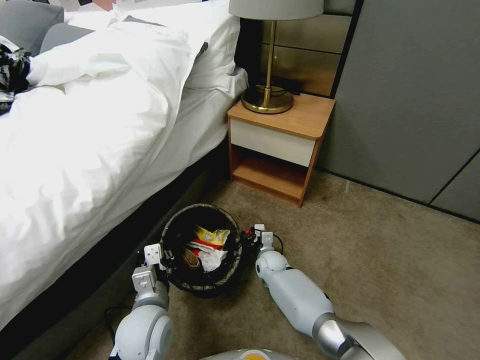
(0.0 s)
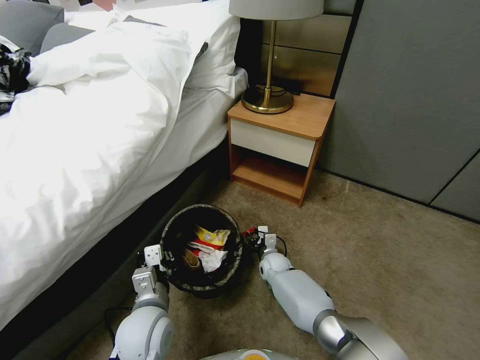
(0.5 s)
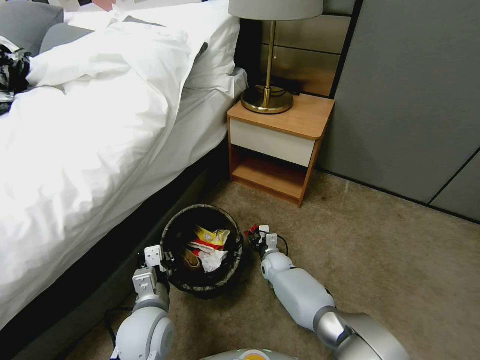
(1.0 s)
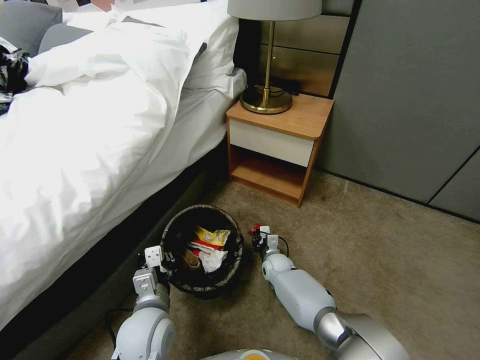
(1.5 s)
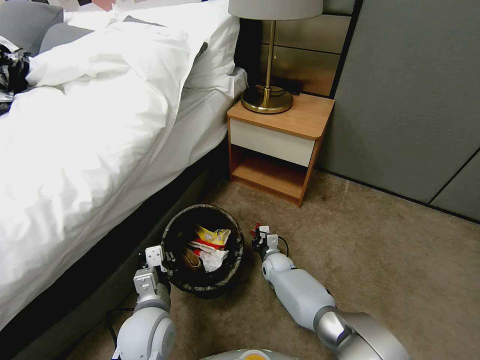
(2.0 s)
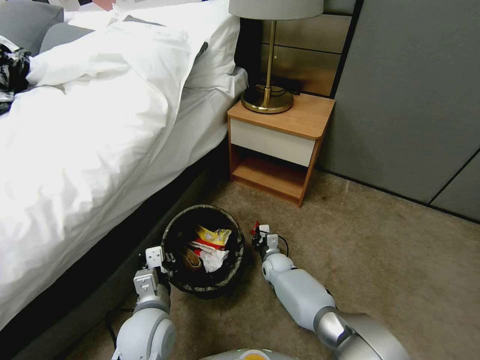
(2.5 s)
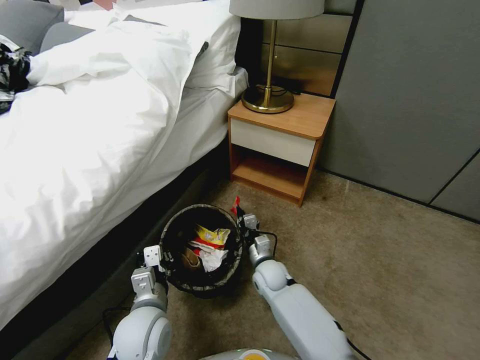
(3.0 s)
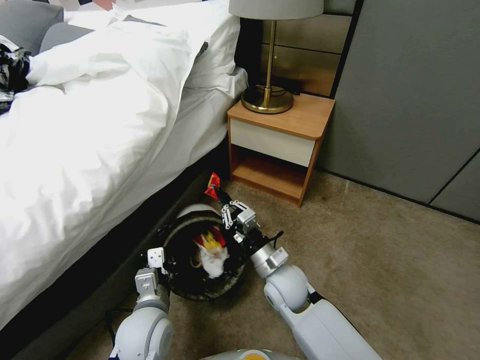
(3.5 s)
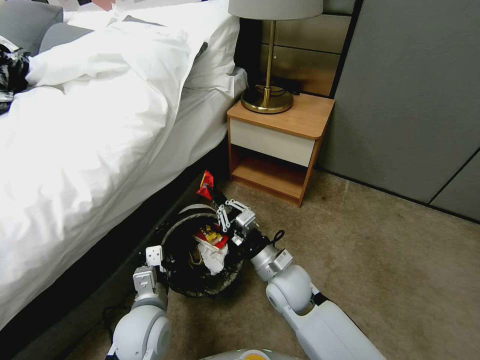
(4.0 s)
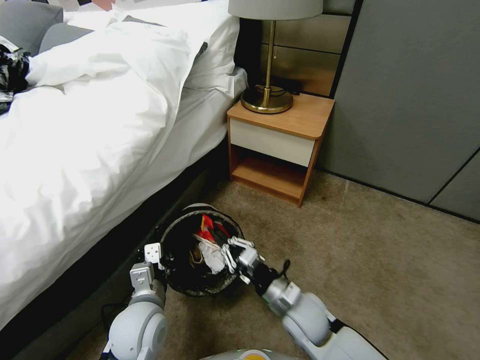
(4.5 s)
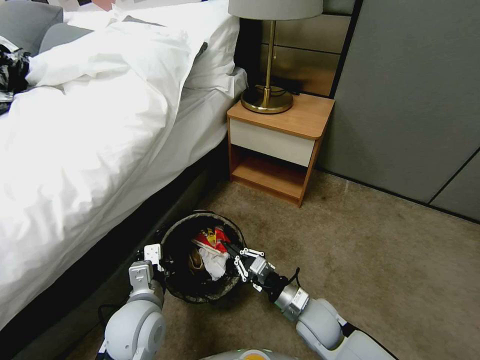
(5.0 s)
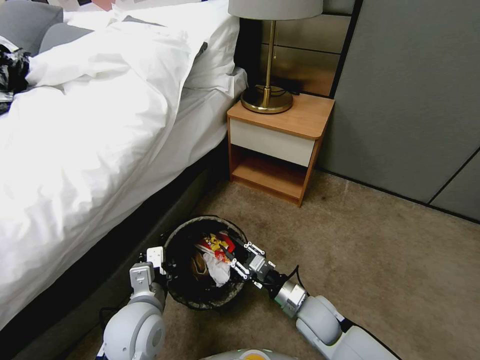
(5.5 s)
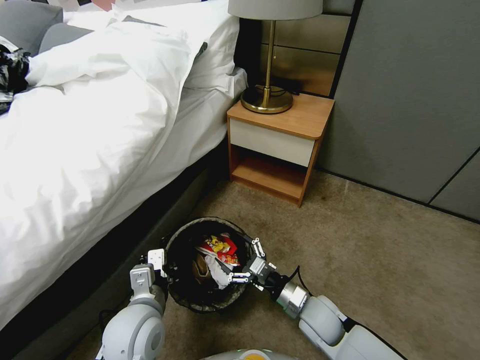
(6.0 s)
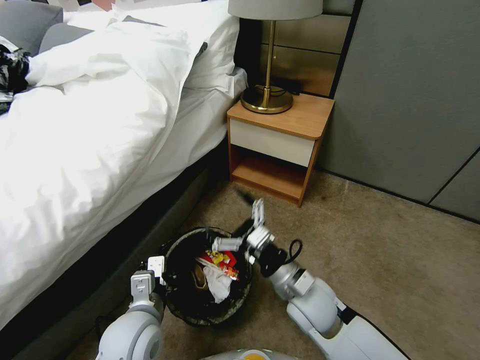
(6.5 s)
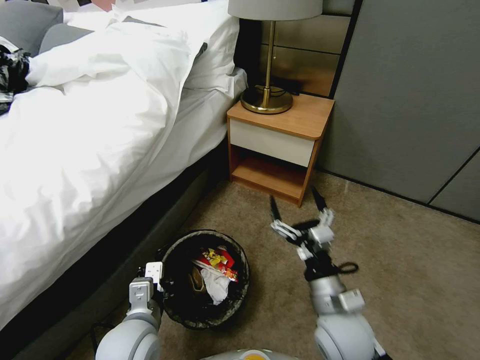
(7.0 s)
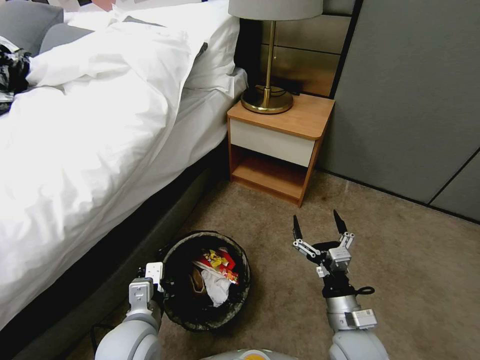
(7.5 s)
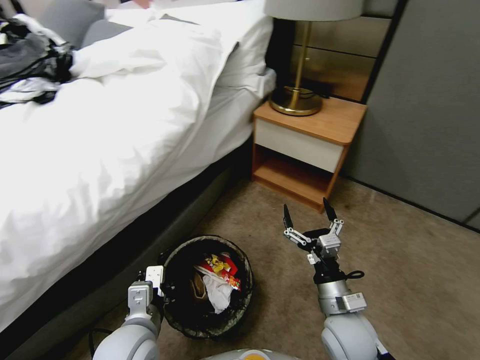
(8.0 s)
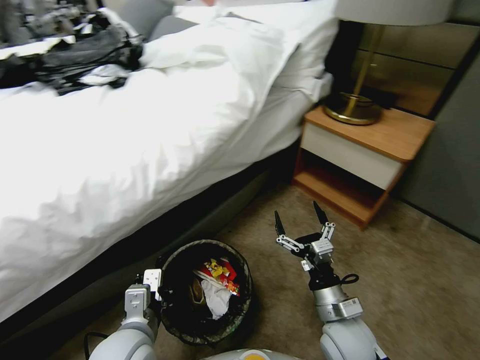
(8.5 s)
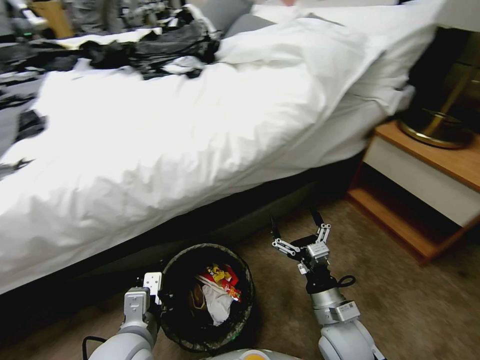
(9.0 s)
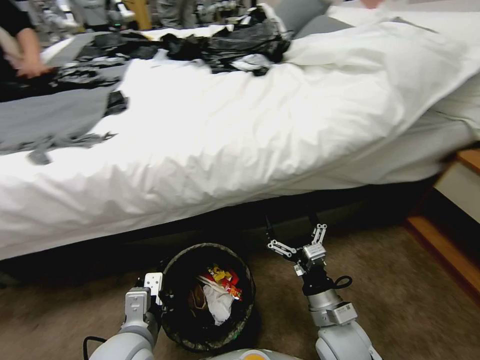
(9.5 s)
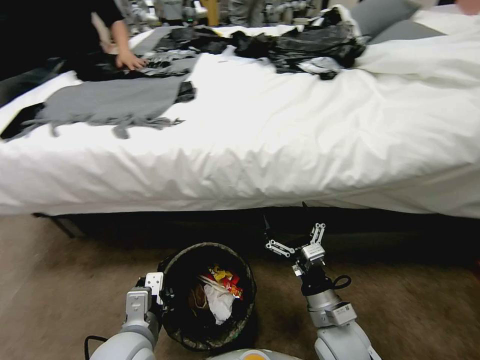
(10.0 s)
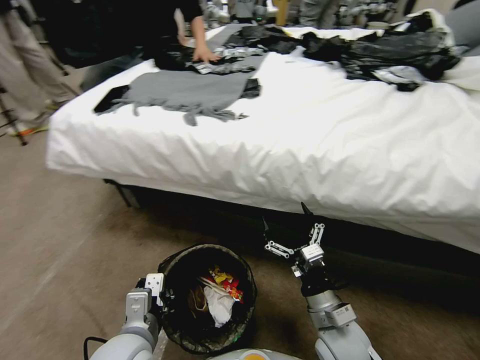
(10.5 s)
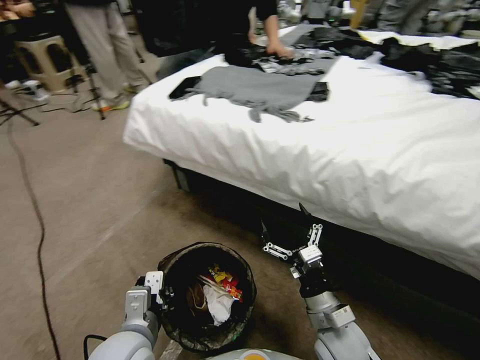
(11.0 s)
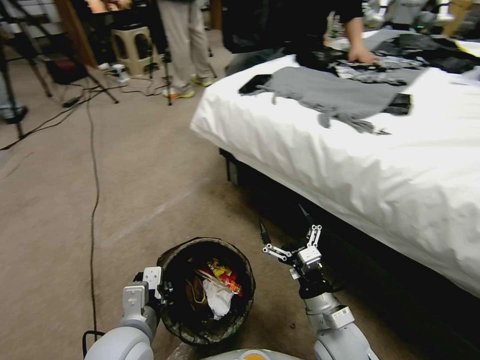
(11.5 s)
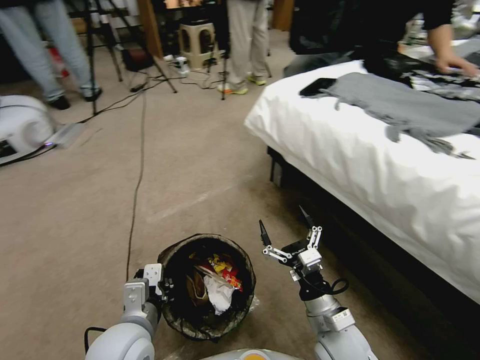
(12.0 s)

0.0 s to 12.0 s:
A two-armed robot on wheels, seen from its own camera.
Task of the whole recording: Pick up the trash bin, then pick up the garbage from the floor and place it into the trash bin.
0.0 to 2.0 s: The right gripper closes its fingers.
2.0 to 4.0 s: The right gripper heads upward and backward, covering approximately 25 cm.
4.0 to 6.0 s: The right gripper goes roughly 10 cm downward and to the right, and opens its fingers.
6.0 to 8.0 s: The right gripper shifts roughly 10 cm upward and backward.

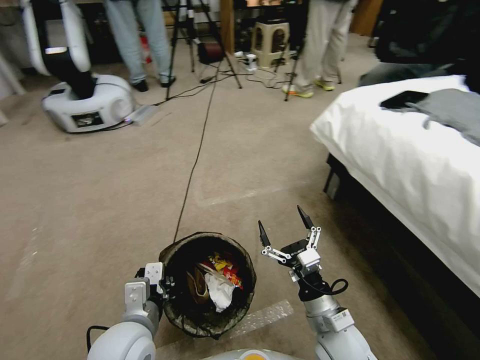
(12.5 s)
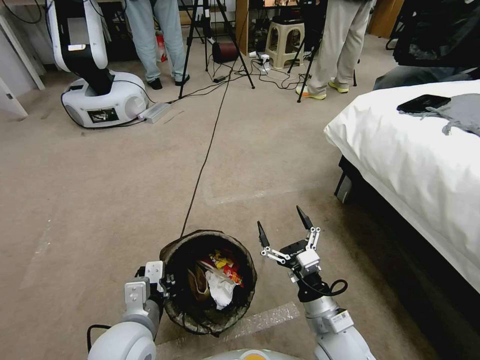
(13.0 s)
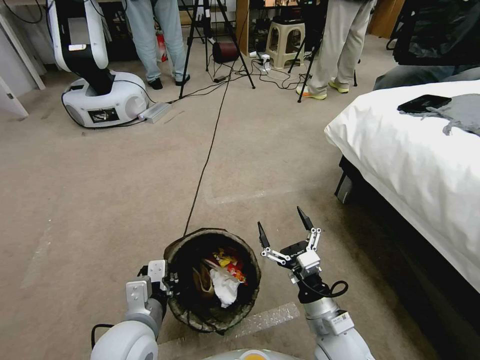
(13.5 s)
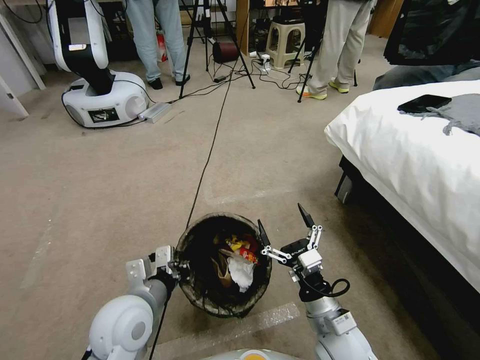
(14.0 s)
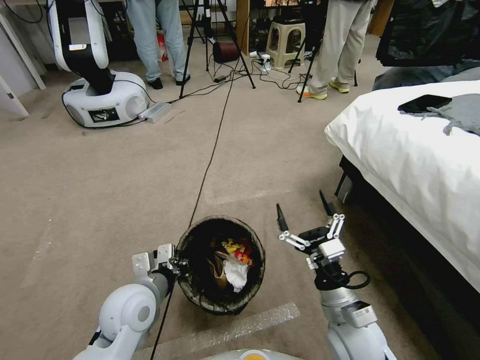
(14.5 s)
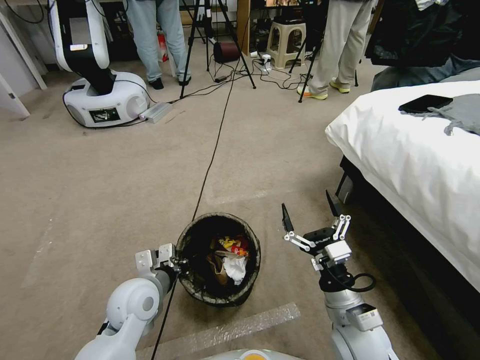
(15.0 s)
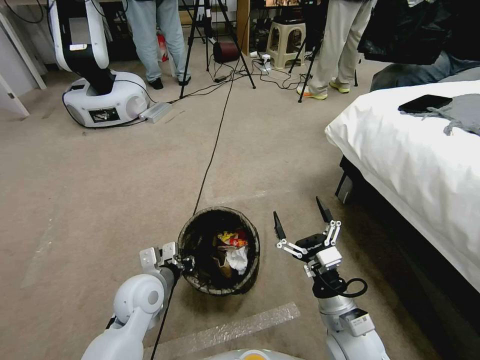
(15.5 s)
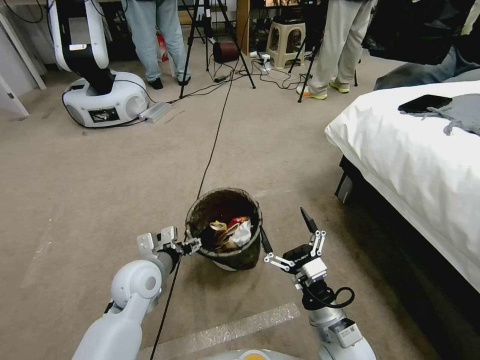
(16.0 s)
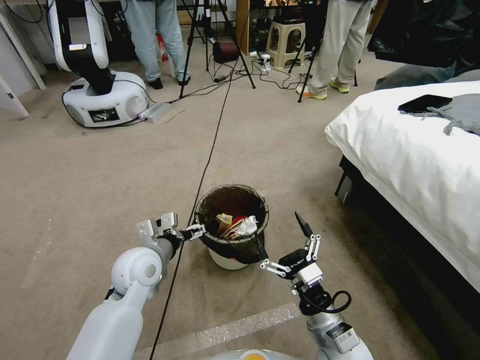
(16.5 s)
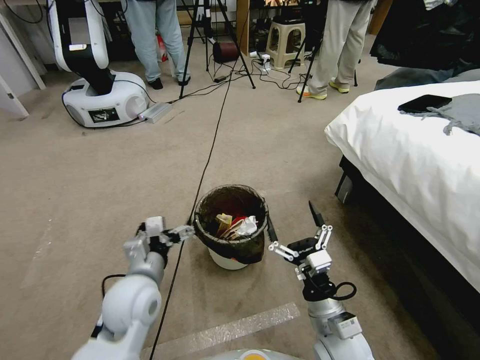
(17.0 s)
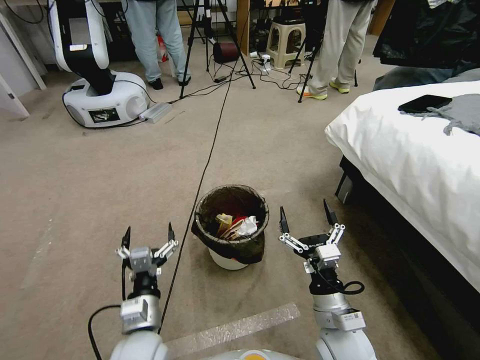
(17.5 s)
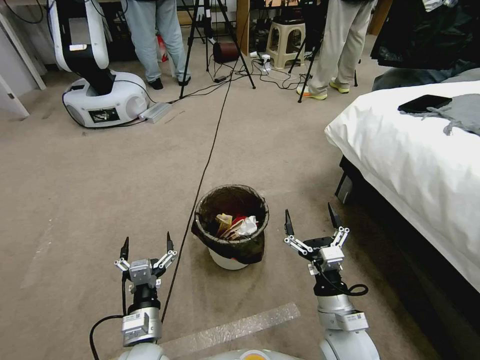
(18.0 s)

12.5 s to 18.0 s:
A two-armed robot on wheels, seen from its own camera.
Task of the whole recording: Pick up the trash bin, then pick up the garbage from the floor and place it into the trash bin.
12.5 to 14.5 s: The left gripper travels forward by roughly 5 cm.
14.5 to 16.0 s: The left gripper goes roughly 5 cm forward, and opens.
16.0 to 18.0 s: The left gripper travels backward and downward by roughly 15 cm.

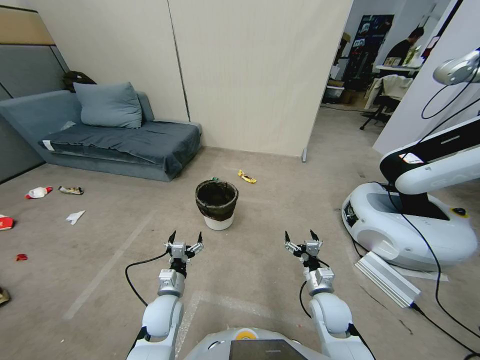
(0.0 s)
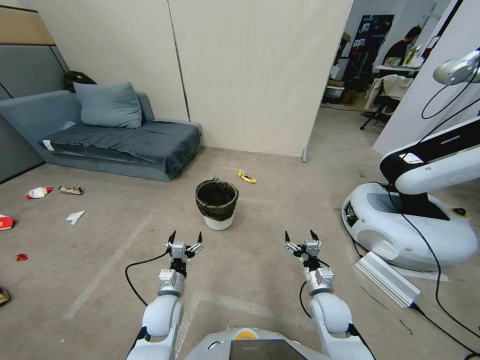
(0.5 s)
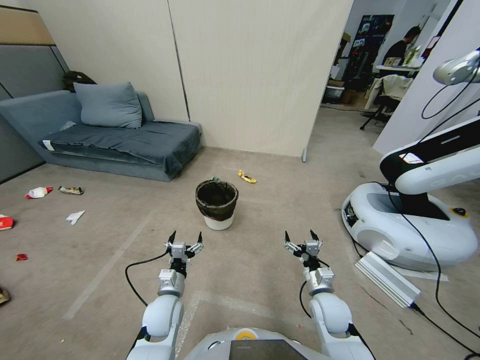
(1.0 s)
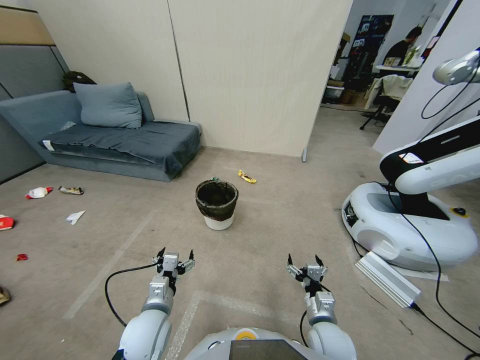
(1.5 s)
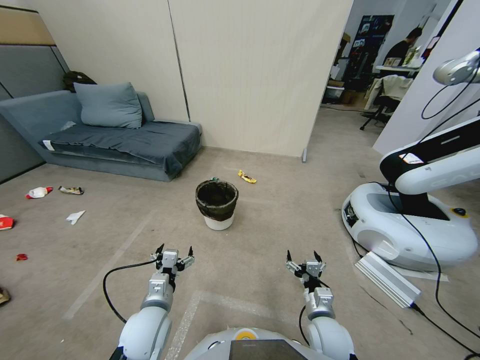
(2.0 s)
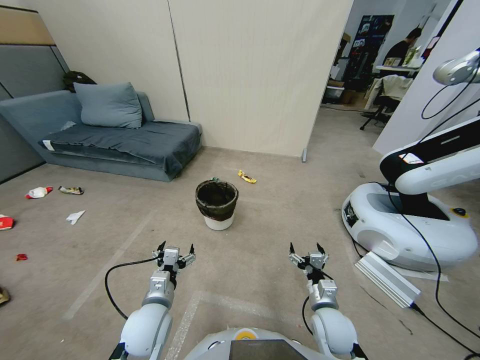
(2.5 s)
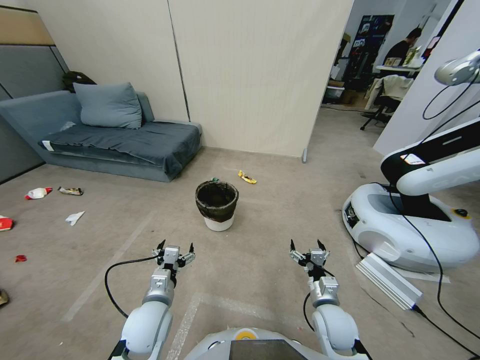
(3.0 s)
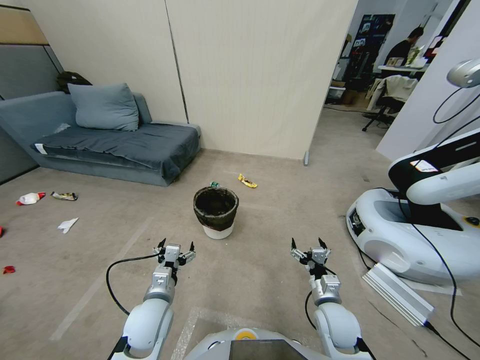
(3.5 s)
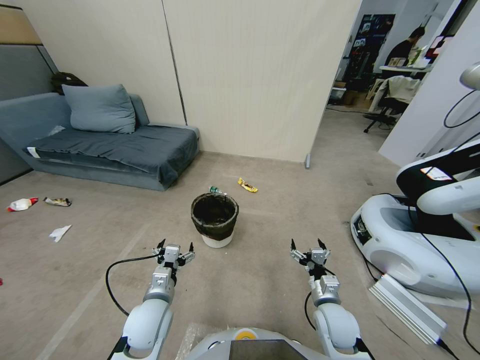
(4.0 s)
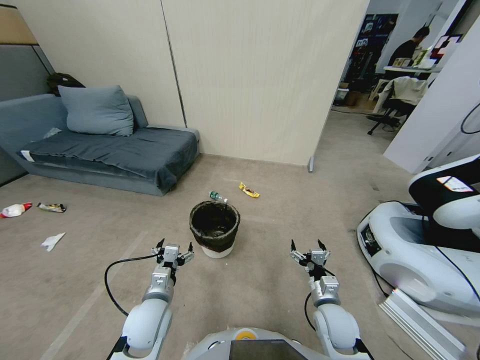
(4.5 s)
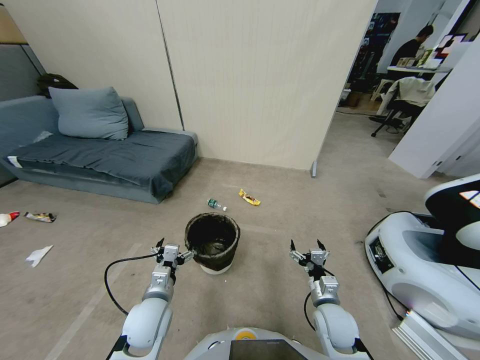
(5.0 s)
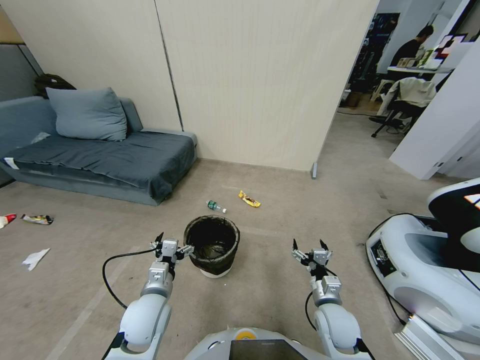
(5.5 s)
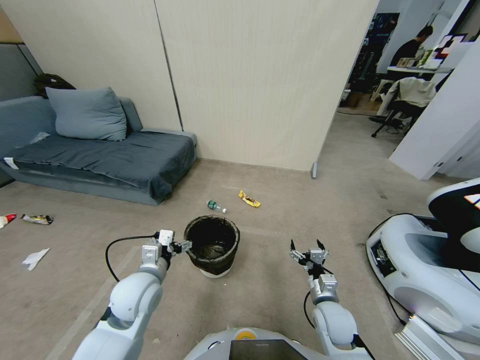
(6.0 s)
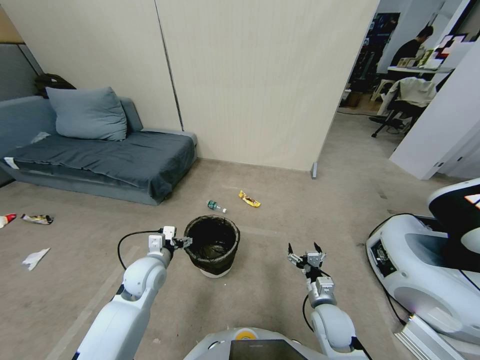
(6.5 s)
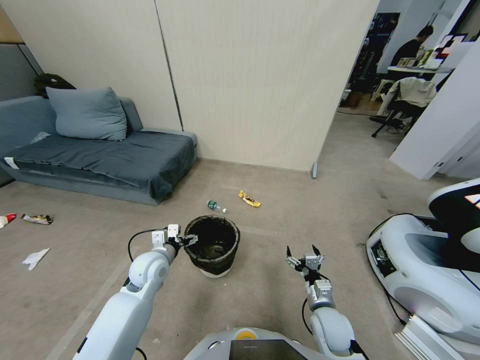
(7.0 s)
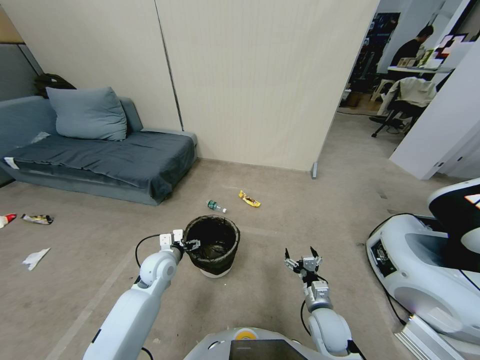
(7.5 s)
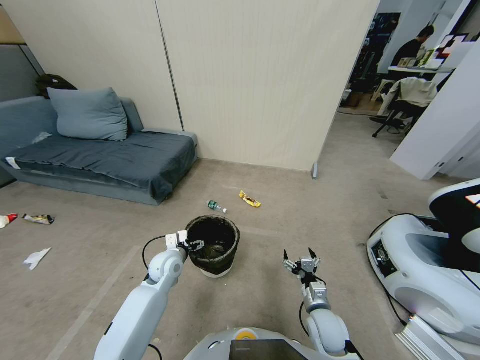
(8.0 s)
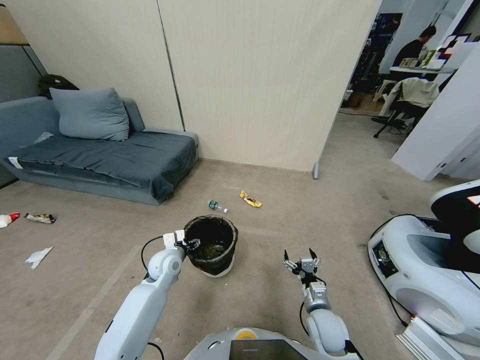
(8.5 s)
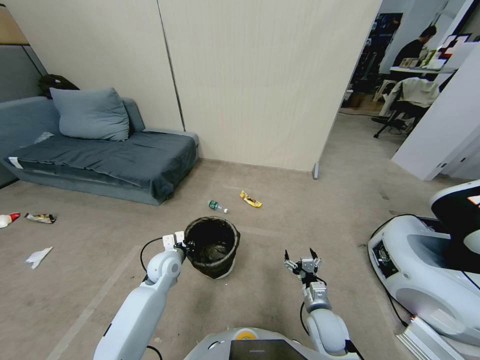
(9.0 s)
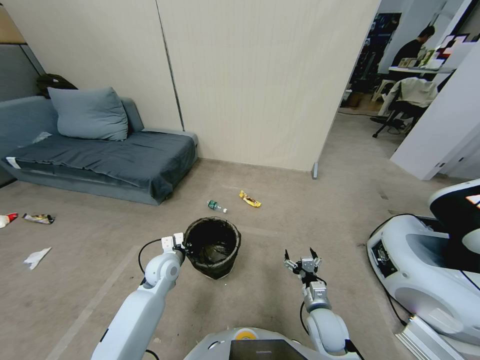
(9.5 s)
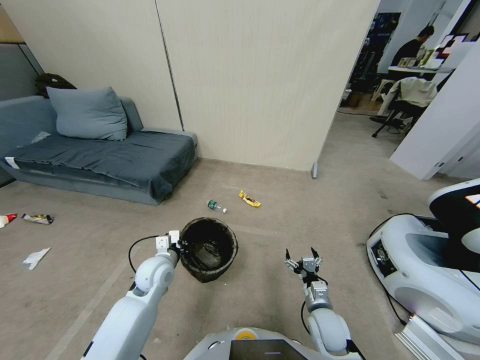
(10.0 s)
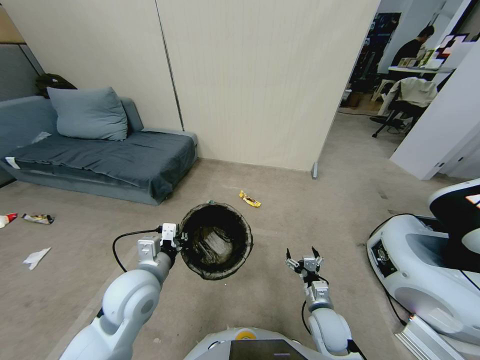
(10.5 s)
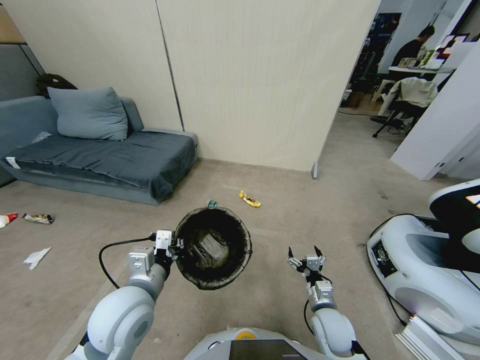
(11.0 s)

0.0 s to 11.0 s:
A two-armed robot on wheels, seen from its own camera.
Task of the whole recording: Pick up the trash bin, then pick up the garbage from the floor and place it into the trash bin.
5.5 to 7.5 s: The left gripper goes some 10 cm forward.
7.5 to 9.0 s: The left gripper closes its fingers.
9.0 to 11.0 s: The left gripper is displaced upward and backward by approximately 20 cm.
